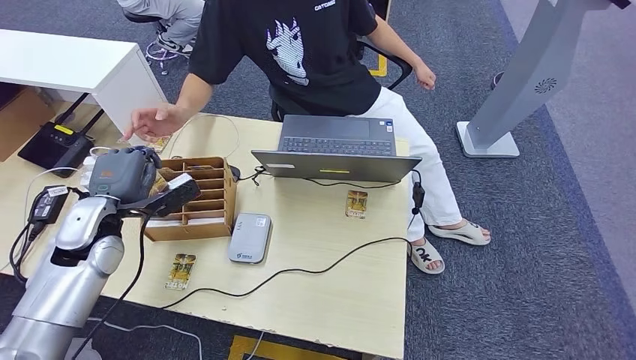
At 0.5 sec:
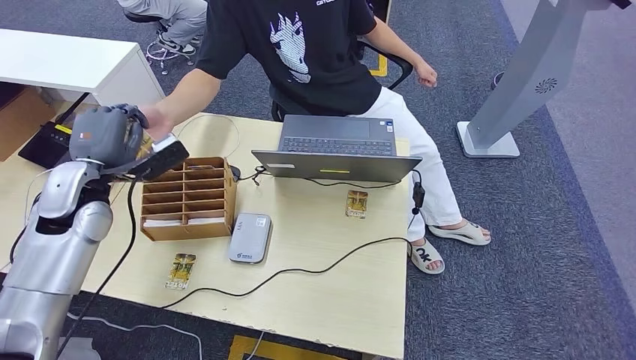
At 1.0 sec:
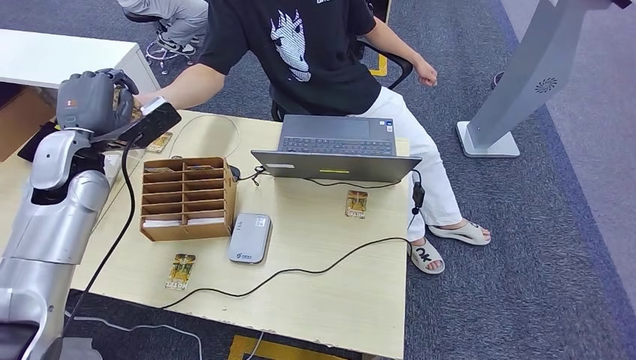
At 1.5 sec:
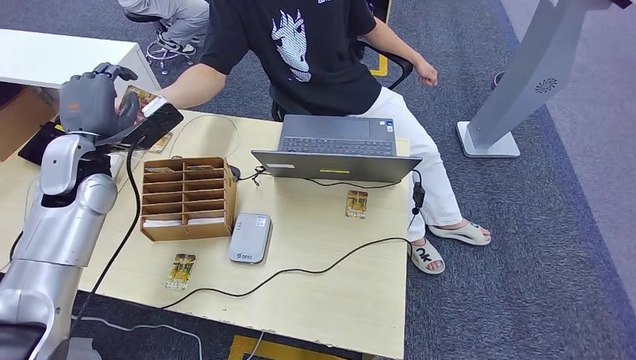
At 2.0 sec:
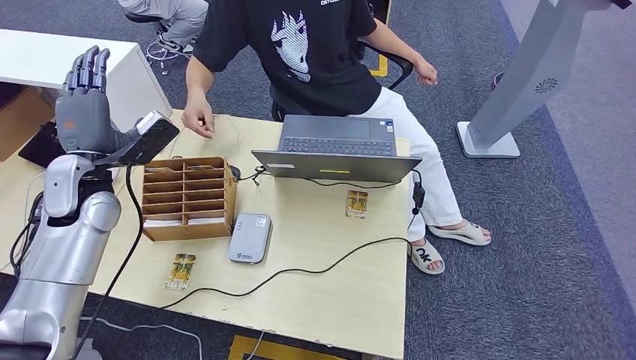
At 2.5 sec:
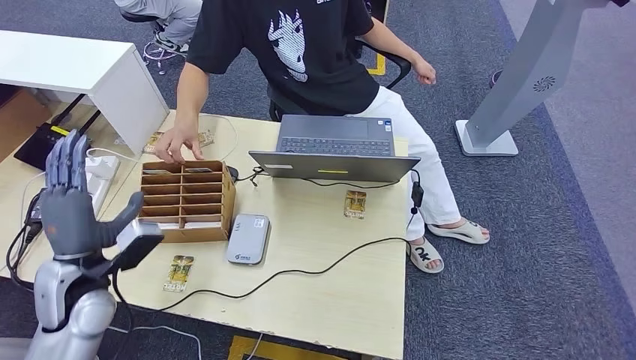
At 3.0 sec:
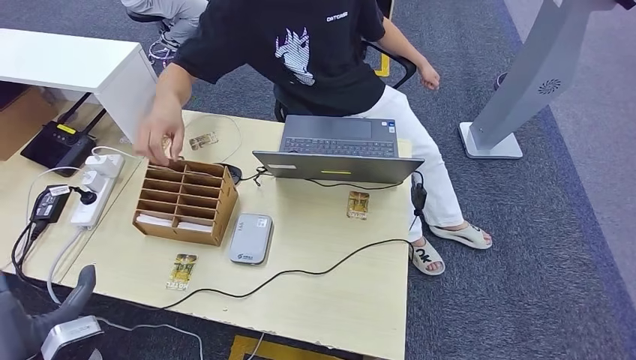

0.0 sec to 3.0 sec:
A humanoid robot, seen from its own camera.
Step, 0.5 sec to 3.0 sec: Hand the room key to the person.
0.0 sec to 1.5 sec: The left hand shifts about 10 cm upward and forward.
1.5 sec to 3.0 sec: The left hand goes about 30 cm backward and downward.
